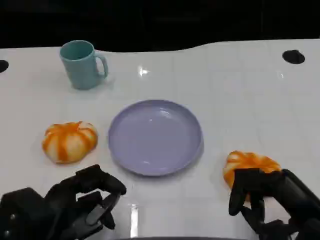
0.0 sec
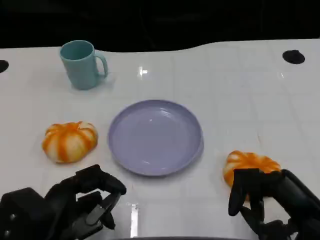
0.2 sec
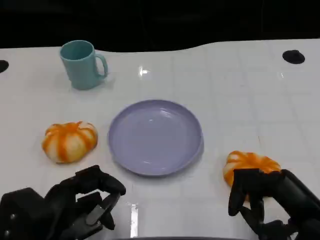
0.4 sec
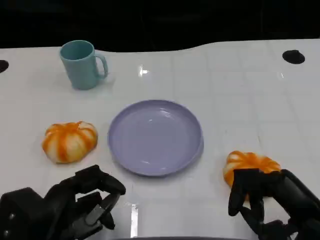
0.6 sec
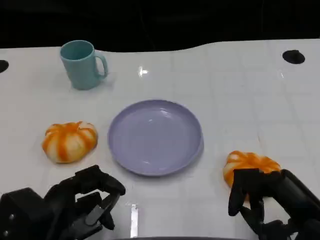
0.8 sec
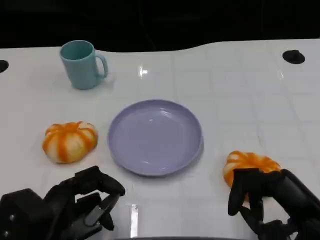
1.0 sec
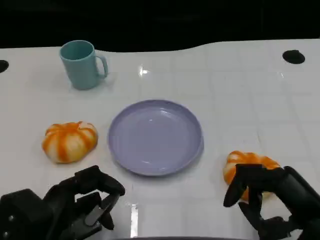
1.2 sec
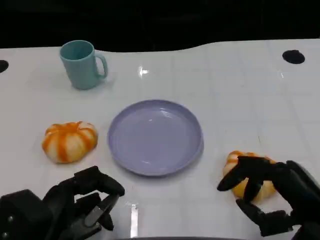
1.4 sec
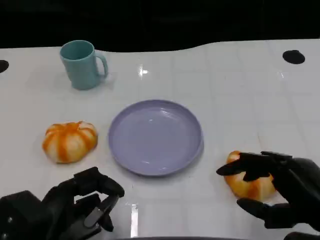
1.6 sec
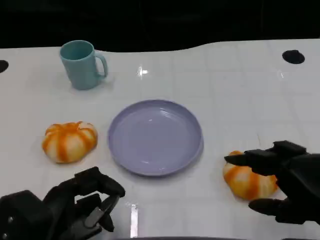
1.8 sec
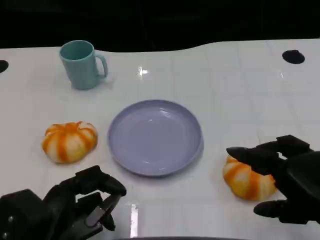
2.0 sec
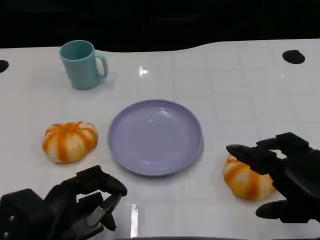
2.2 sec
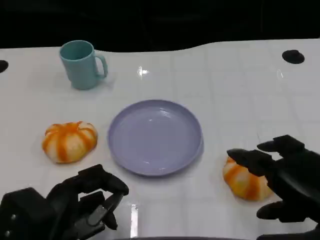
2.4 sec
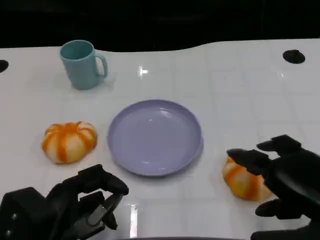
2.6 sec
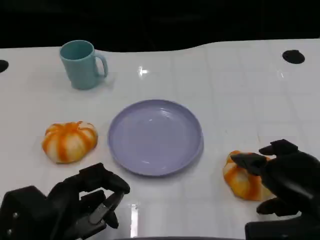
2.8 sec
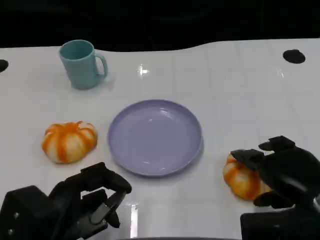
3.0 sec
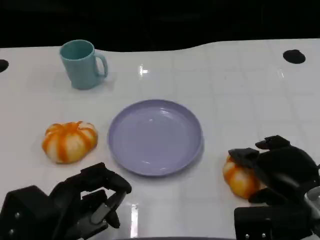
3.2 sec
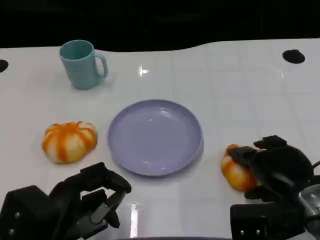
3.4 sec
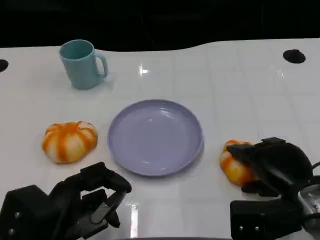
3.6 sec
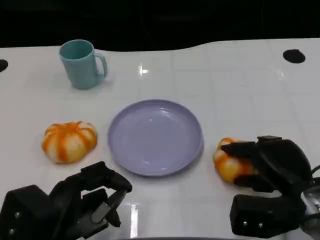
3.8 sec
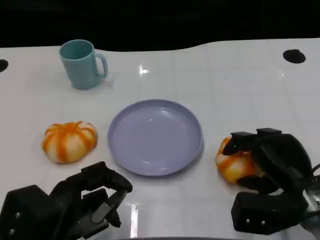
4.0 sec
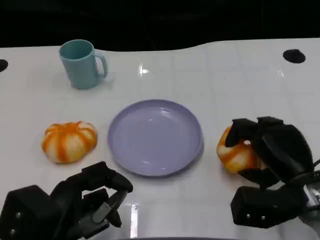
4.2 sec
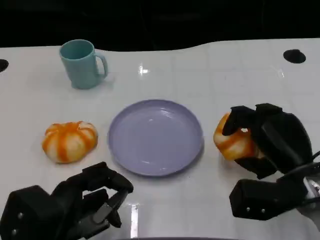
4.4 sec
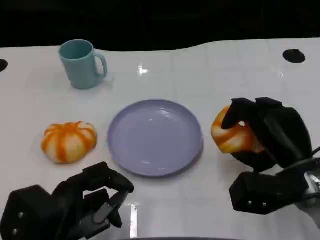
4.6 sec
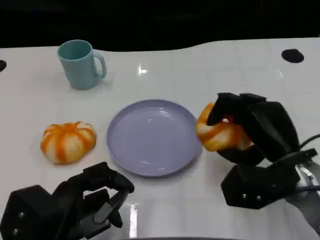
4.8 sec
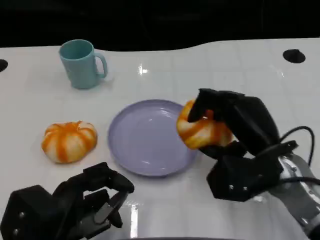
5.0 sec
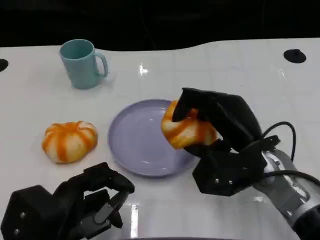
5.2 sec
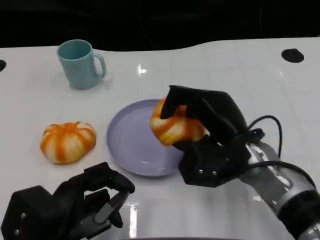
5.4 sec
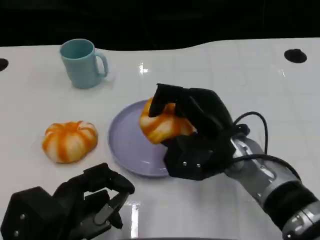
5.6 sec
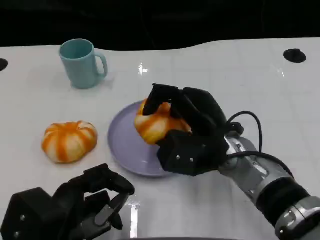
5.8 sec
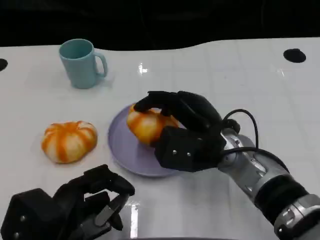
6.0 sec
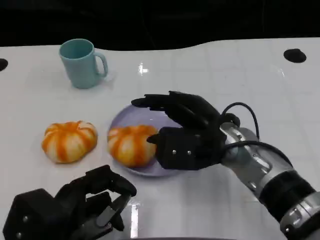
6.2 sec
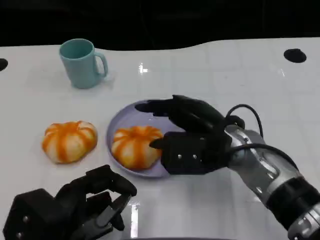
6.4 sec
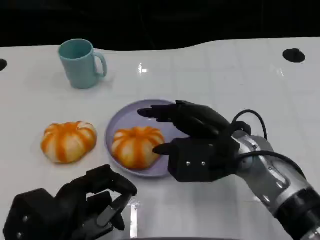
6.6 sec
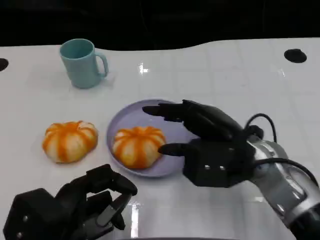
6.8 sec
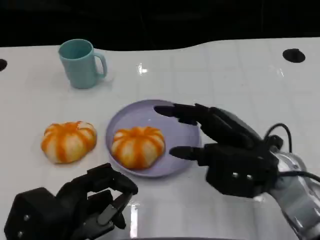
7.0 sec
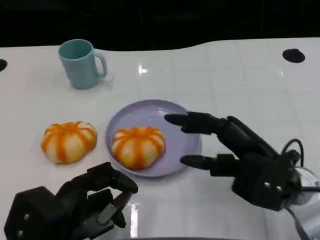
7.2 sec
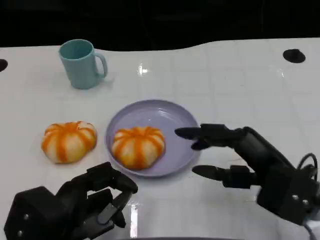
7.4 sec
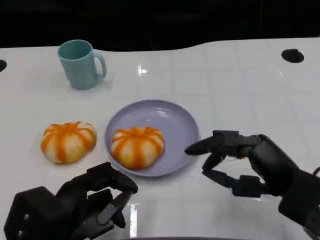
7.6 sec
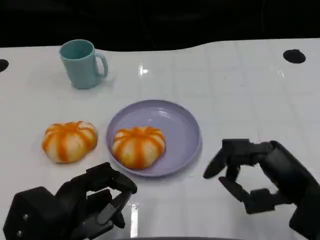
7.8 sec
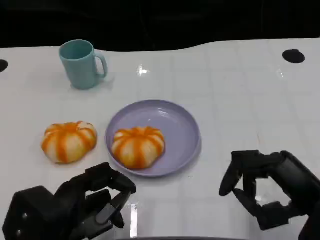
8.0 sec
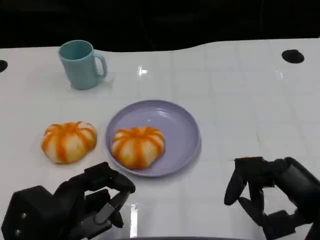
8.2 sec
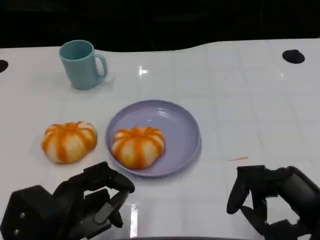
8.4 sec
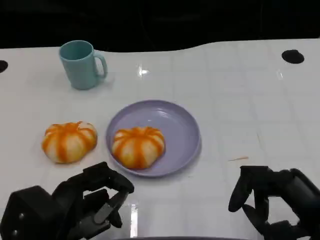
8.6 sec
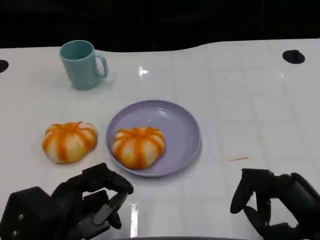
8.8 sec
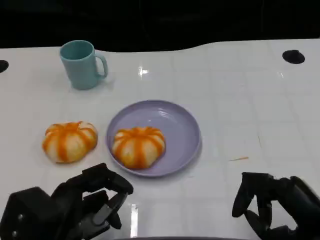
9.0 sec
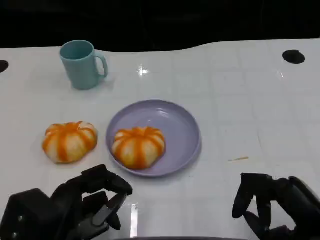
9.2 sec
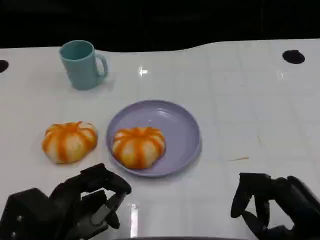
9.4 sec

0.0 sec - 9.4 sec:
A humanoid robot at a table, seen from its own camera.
Task of the whole recording: Grasp the bread from the table and place it into the plate.
1.6 sec - 3.2 sec: The right hand travels forward by about 5 cm.
3.2 sec - 4.8 sec: The right hand ends up approximately 5 cm from where it was.
4.8 sec - 6.2 sec: The right hand travels to the left by some 10 cm.
6.2 sec - 7.8 sec: The right hand moves to the right and backward, some 15 cm.
7.8 sec - 9.4 sec: There are only small adjustments of the hands.

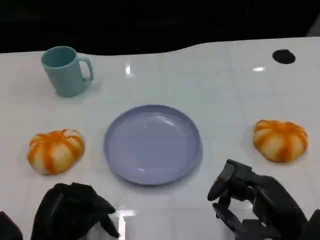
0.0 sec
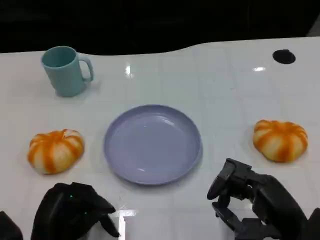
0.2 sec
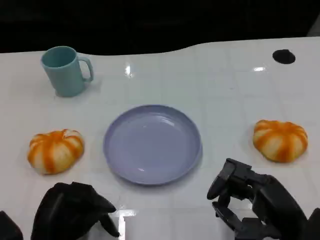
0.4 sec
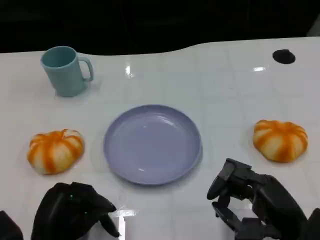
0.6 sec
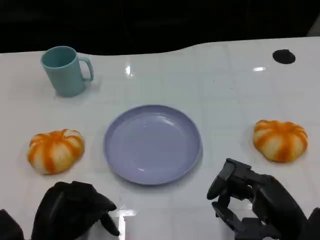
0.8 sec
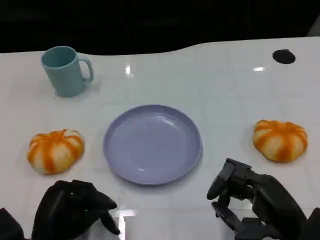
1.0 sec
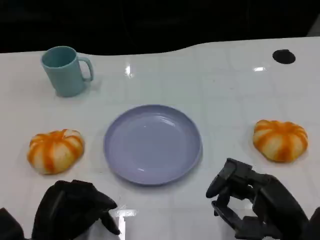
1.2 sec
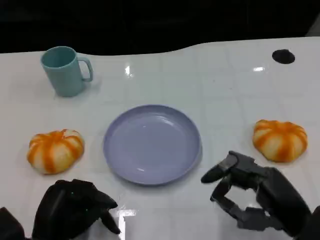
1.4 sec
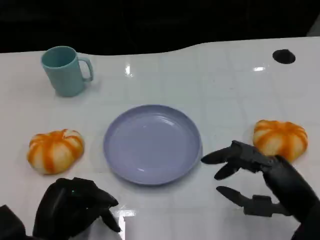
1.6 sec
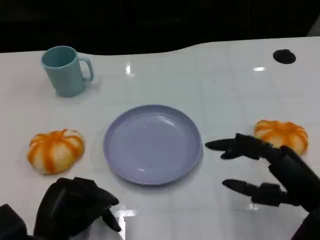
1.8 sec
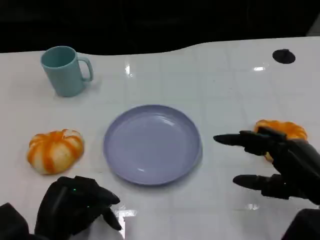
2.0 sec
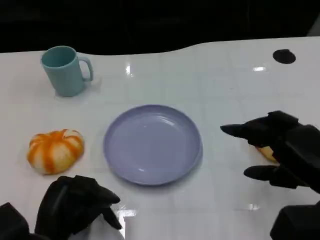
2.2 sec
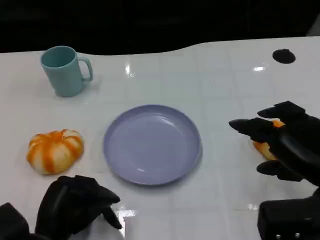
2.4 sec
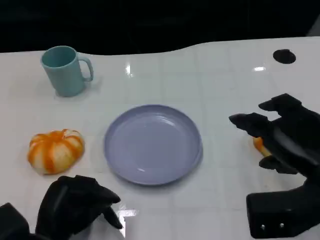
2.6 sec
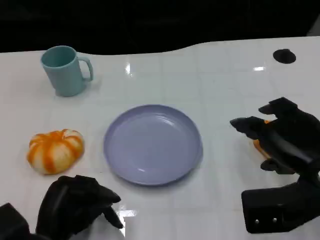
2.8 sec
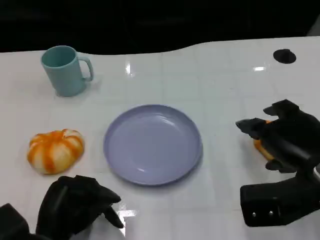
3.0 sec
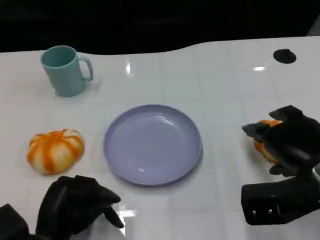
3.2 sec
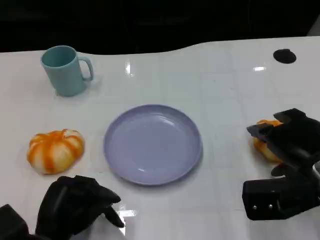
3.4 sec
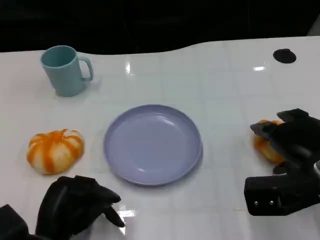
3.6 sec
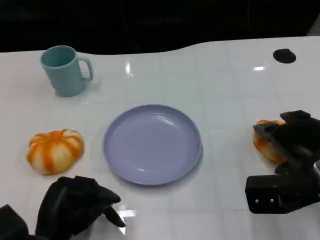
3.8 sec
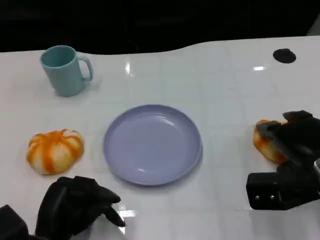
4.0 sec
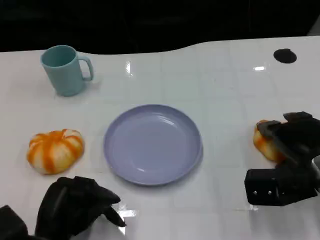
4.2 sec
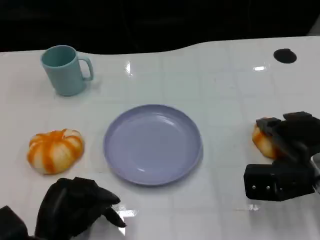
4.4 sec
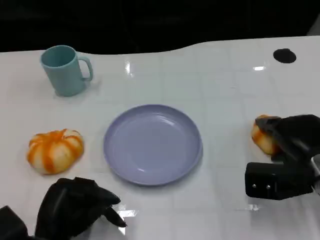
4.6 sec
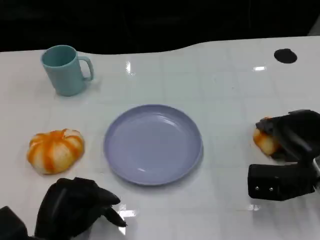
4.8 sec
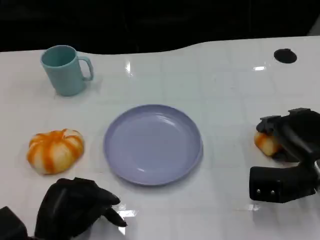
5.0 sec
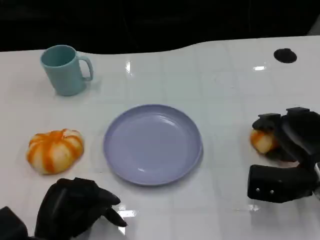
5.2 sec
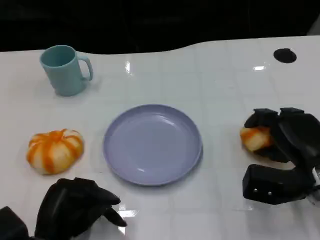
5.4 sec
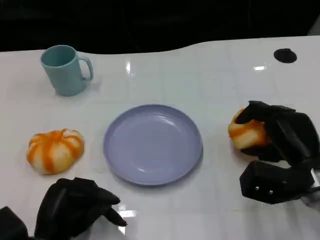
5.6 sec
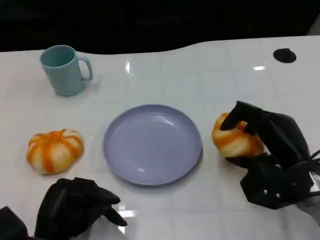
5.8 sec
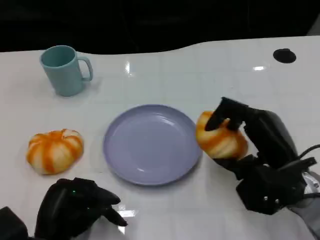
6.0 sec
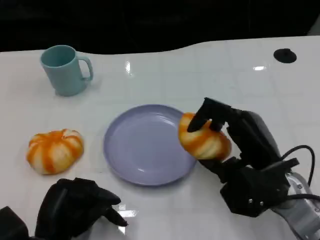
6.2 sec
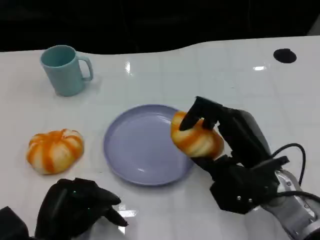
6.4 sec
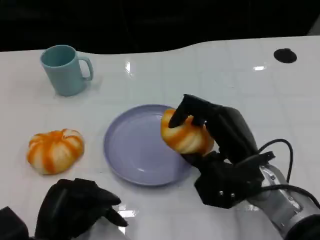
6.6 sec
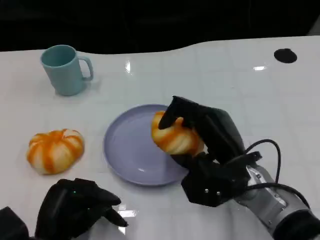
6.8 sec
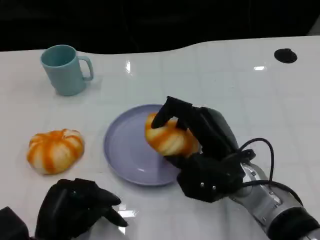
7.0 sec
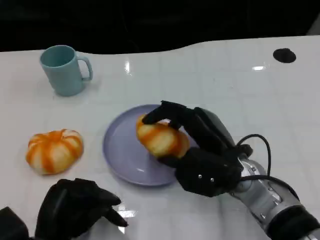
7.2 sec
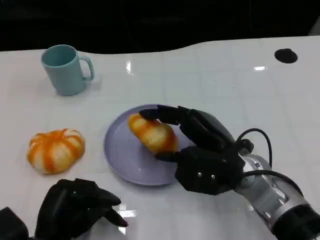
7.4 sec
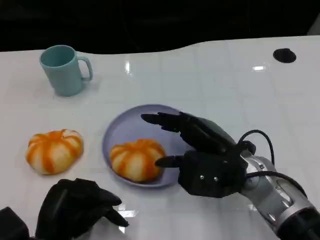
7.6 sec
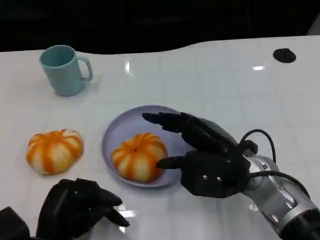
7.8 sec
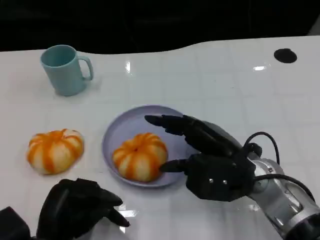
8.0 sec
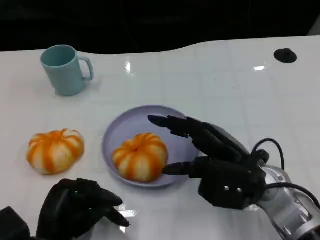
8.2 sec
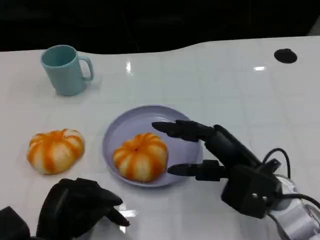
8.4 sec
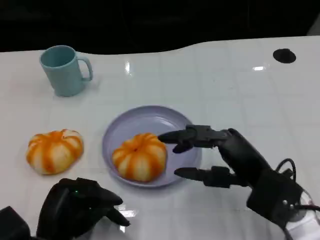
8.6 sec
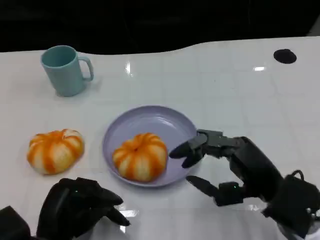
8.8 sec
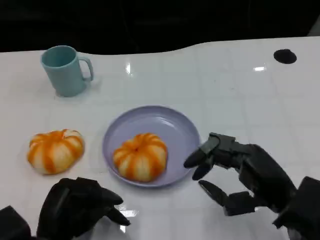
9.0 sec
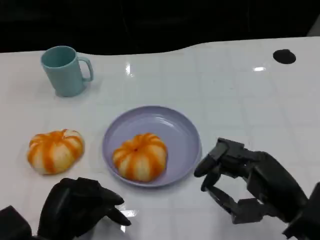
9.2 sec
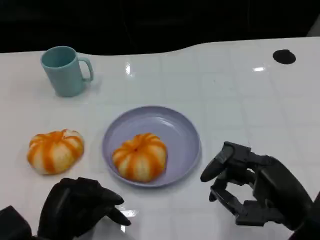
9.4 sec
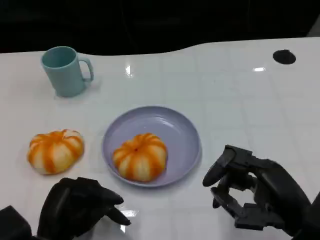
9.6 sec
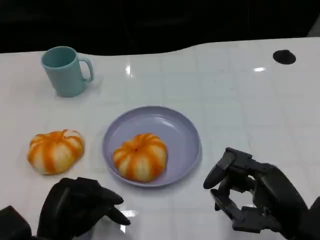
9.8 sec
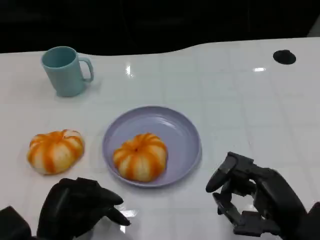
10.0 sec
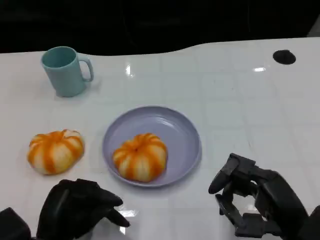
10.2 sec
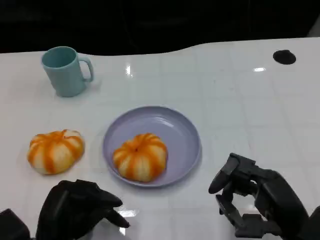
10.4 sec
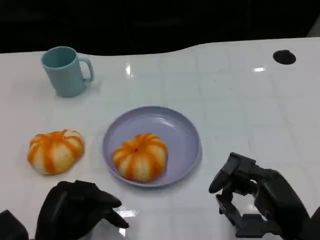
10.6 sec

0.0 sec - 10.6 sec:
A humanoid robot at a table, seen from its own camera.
Task of the whole recording: Grasp the bread from the table and place it into the plate.
0.0 sec - 1.6 sec: The hands stay close to where they were, moving slightly.
1.6 sec - 3.0 sec: The right hand travels forward by roughly 5 cm.
3.0 sec - 4.6 sec: The right hand goes some 5 cm downward.
4.6 sec - 6.0 sec: The right hand goes about 5 cm to the left.
6.0 sec - 7.6 sec: The right hand moves to the left, approximately 5 cm.
7.6 sec - 9.0 sec: The right hand travels to the right and backward by about 10 cm.
9.0 sec - 10.6 sec: The hands make only small movements.

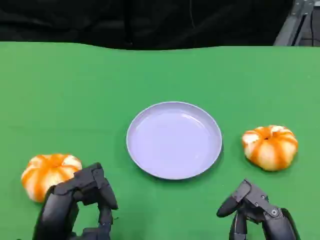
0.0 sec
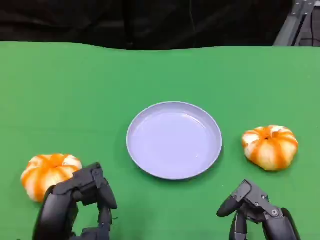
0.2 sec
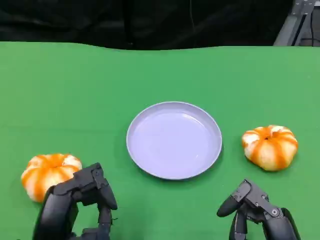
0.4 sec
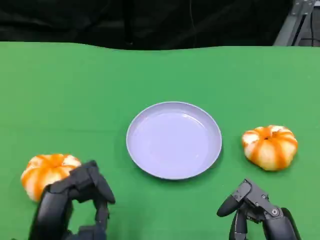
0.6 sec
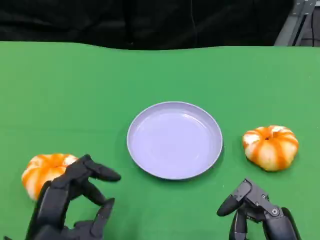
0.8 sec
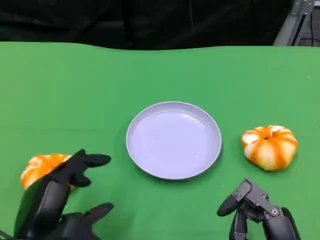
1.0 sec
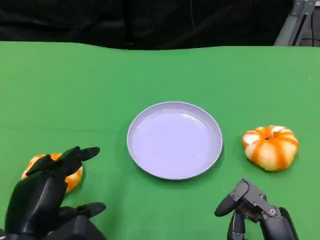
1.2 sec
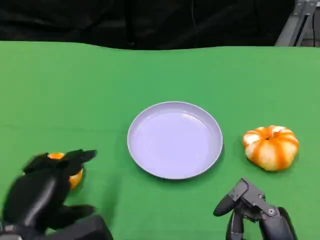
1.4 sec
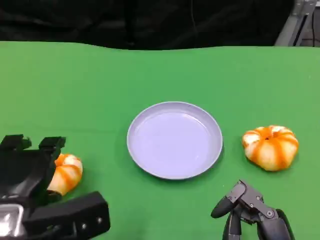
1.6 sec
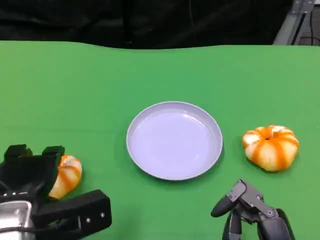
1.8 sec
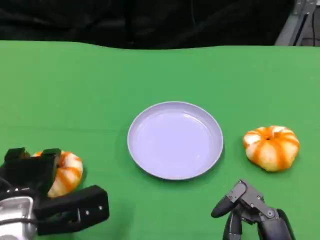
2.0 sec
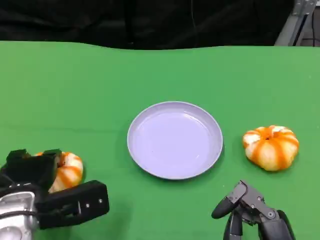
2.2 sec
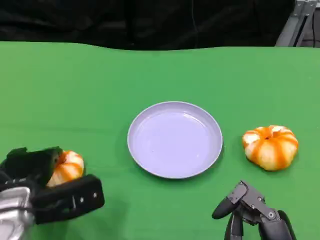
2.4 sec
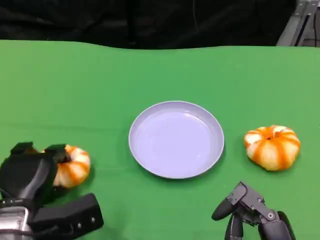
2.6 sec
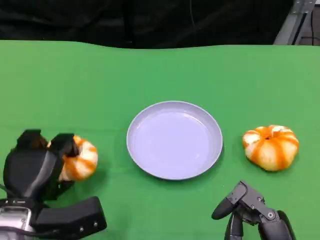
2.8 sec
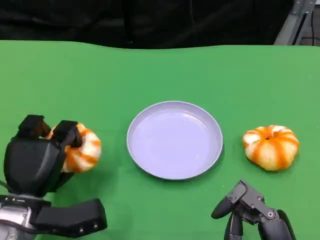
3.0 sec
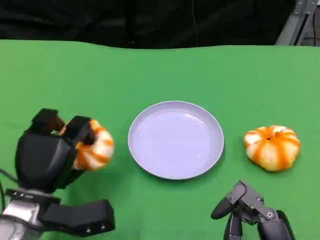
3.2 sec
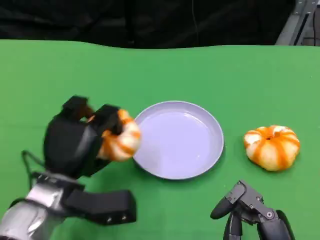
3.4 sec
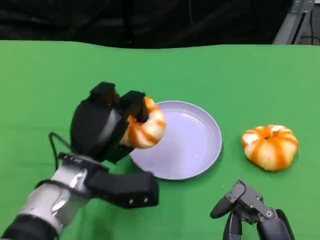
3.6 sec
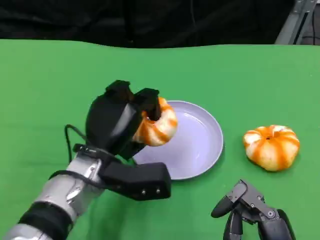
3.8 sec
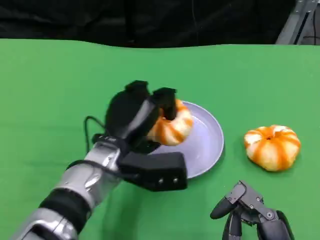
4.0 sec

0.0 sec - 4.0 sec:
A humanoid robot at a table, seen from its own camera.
Task of the whole recording: Grasp the bread from the table and place it into the plate.
0.0 sec - 1.4 sec: The left hand changes place by about 5 cm.
1.4 sec - 2.6 sec: The left hand goes some 10 cm downward and forward.
2.6 sec - 4.0 sec: The left hand travels to the right, forward and upward by roughly 15 cm.
